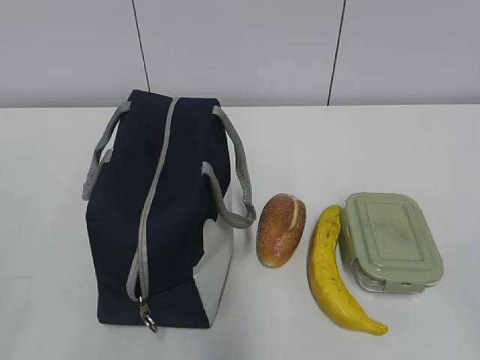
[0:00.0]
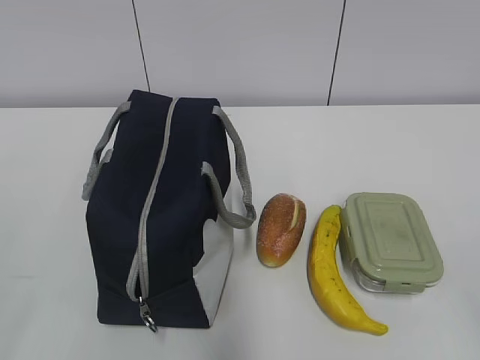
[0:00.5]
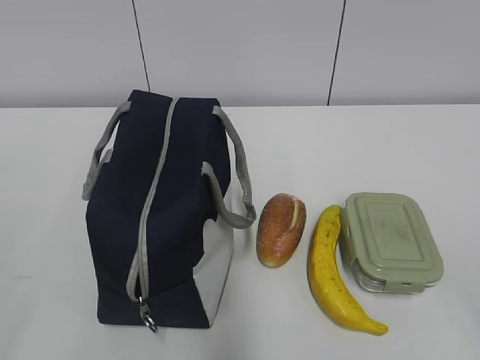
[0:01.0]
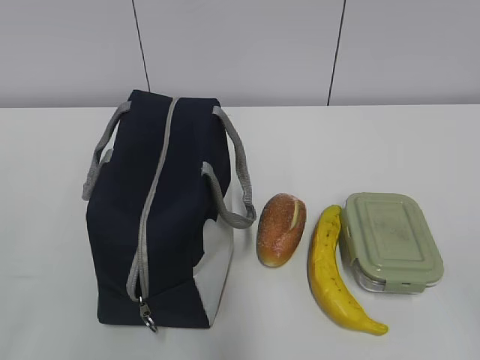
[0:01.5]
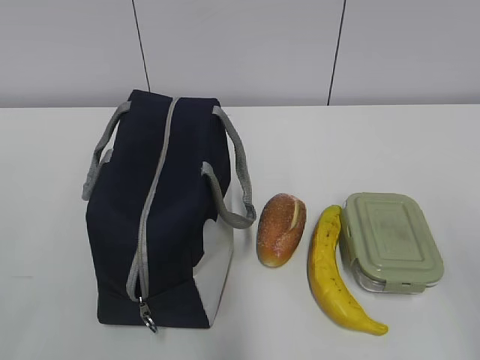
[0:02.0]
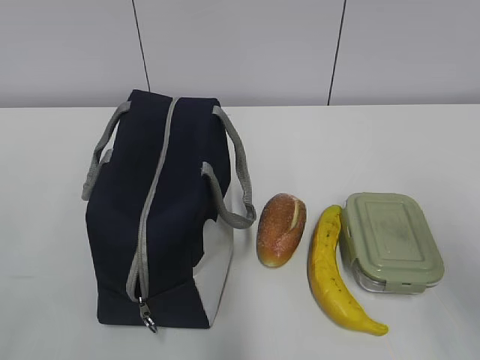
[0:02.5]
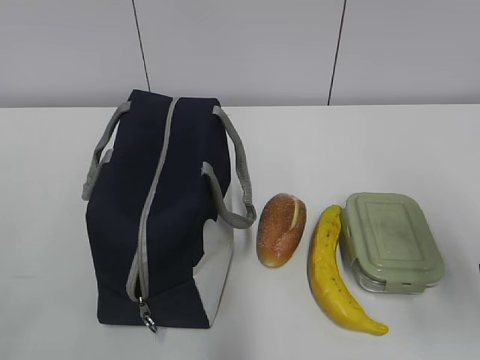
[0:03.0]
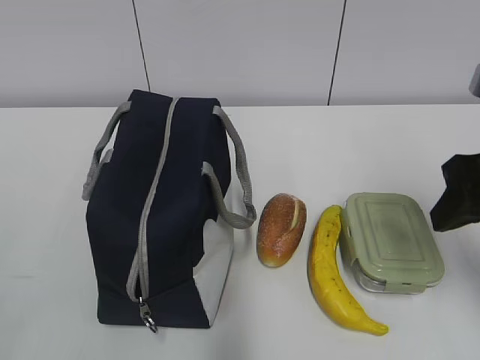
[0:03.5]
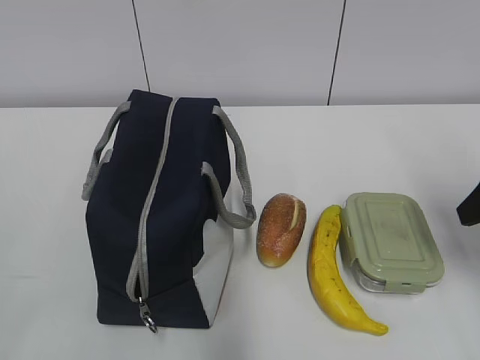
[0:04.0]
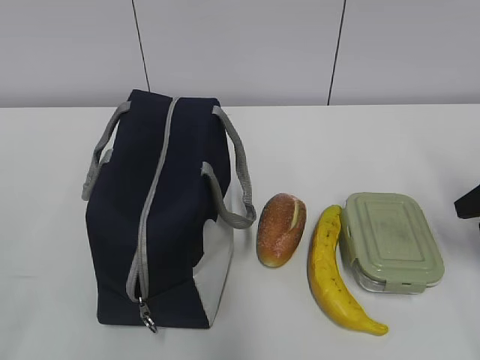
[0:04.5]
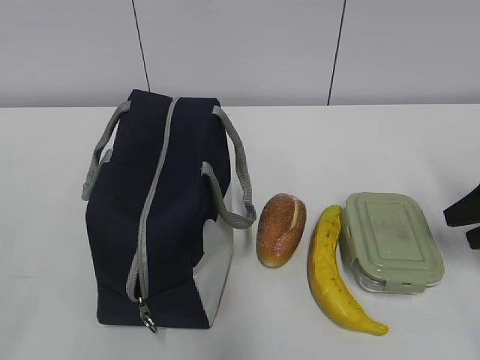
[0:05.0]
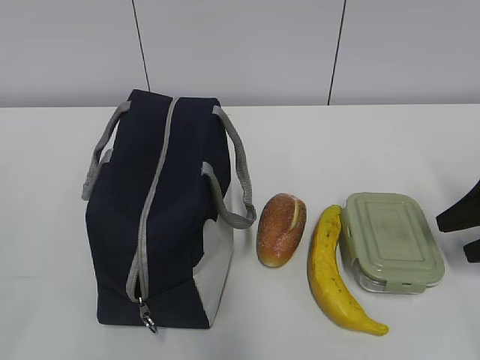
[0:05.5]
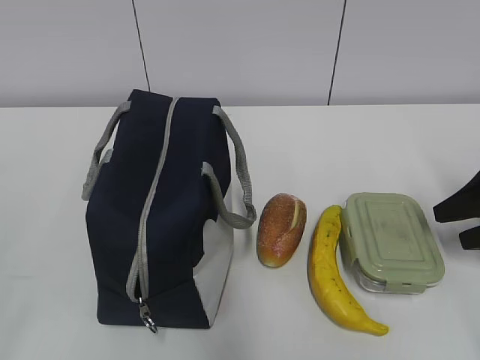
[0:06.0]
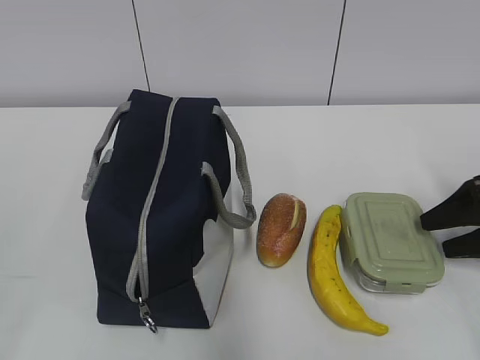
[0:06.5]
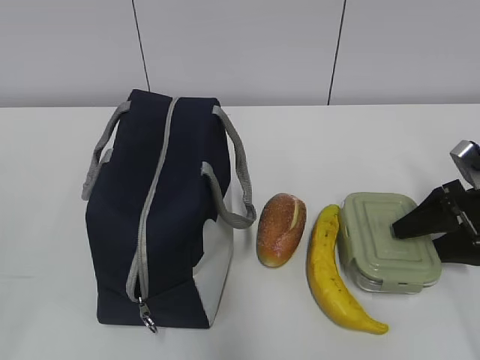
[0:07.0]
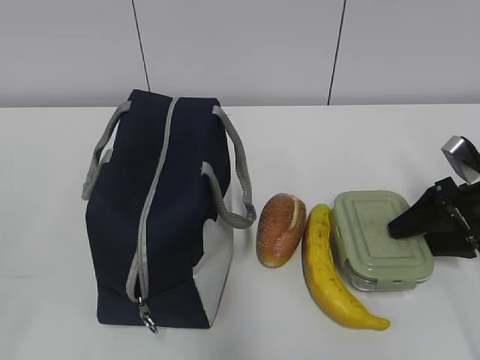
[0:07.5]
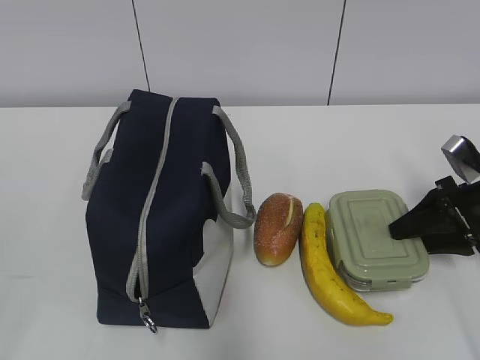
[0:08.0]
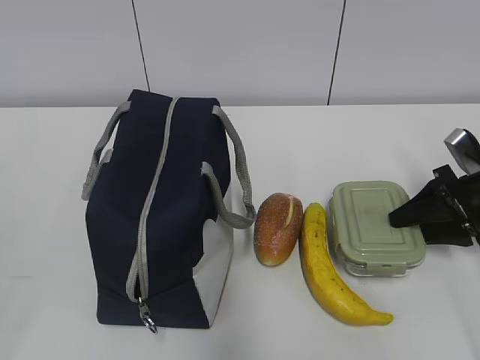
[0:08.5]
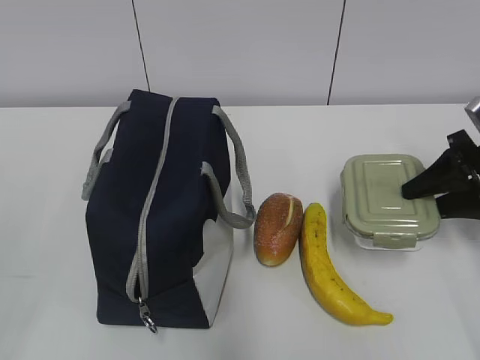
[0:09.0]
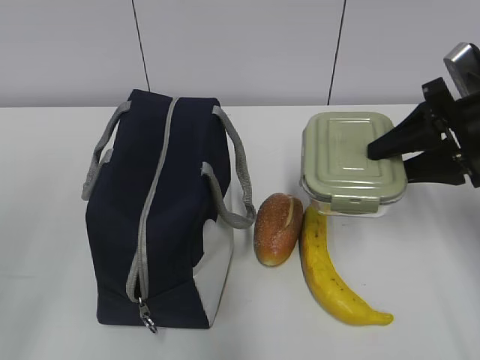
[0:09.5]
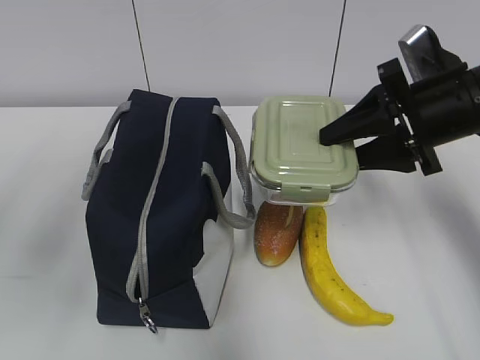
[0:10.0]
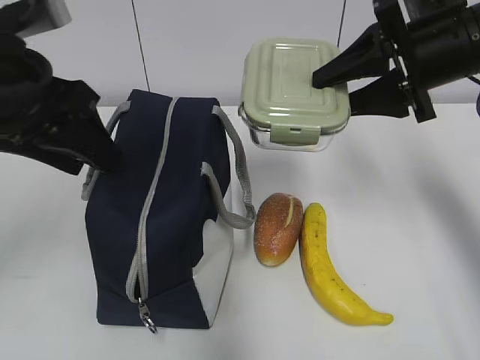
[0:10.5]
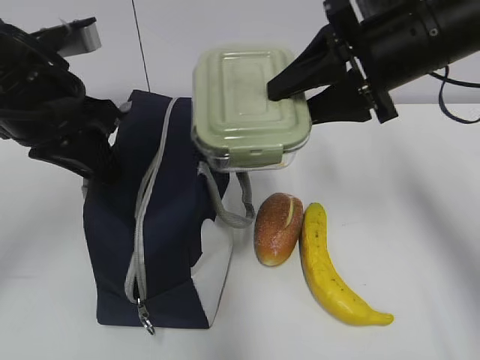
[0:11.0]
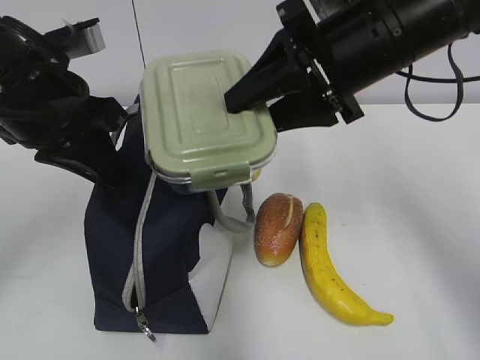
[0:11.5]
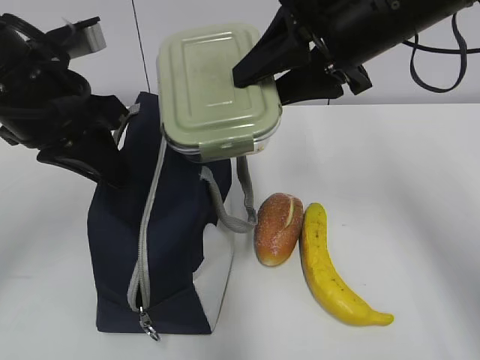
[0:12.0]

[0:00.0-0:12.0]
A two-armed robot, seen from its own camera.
0:02.0 to 0:04.0: The right gripper shifts about 20 cm forward.
0:04.0 to 0:06.0: The right gripper moves downward and to the right, some 10 cm.
0:06.0 to 0:08.0: The right gripper shifts by some 5 cm, and closes its fingers.
0:08.0 to 0:10.0: The left gripper moves forward, approximately 20 cm. The right gripper moves upward and to the left, some 15 cm.
0:10.0 to 0:12.0: The right gripper moves to the left and upward, roughly 10 cm, while the left gripper shifts approximately 15 cm forward, to the right and downward, and closes up.

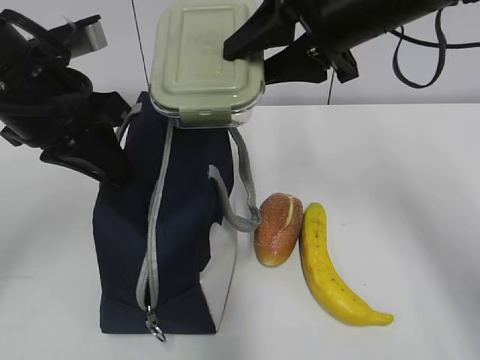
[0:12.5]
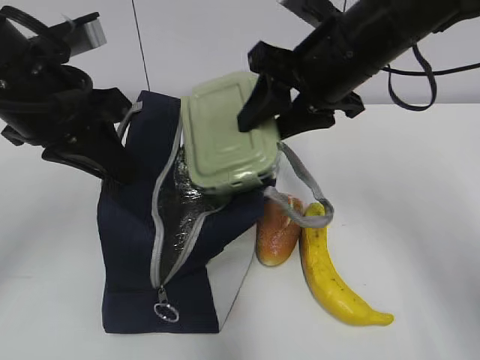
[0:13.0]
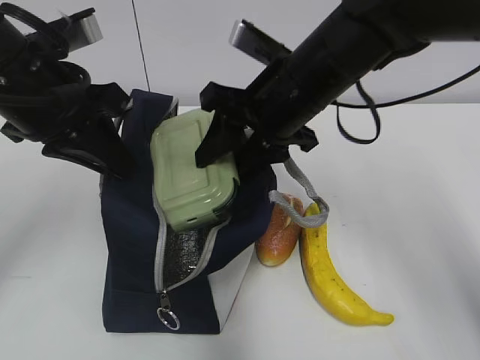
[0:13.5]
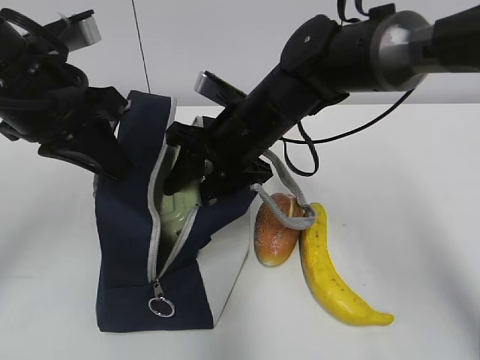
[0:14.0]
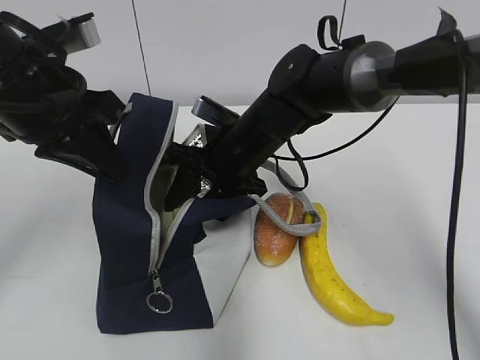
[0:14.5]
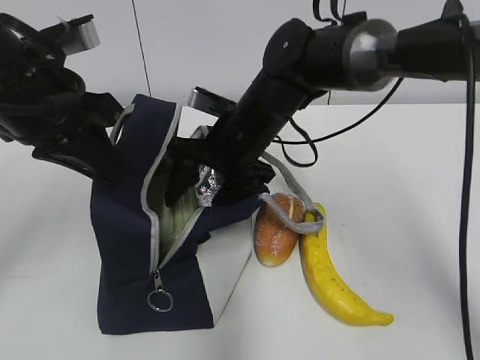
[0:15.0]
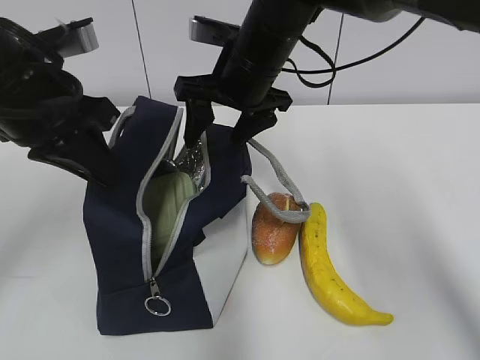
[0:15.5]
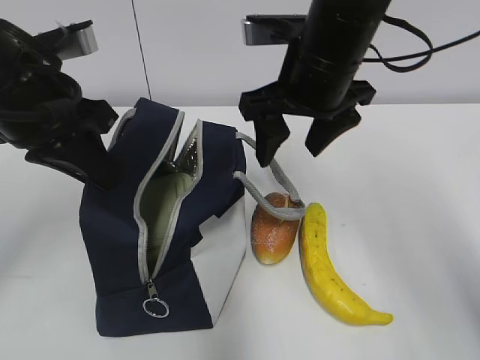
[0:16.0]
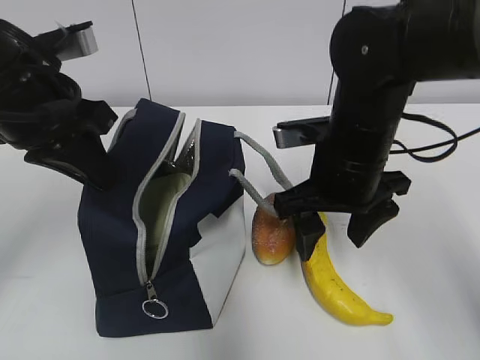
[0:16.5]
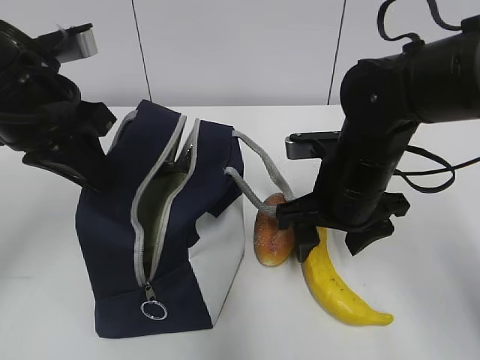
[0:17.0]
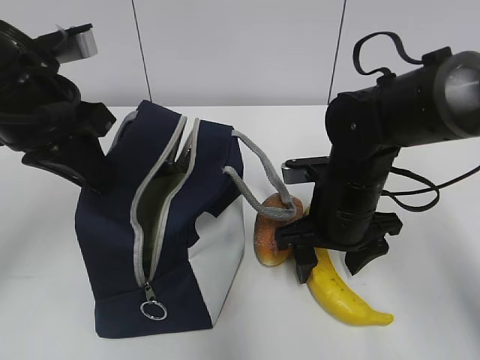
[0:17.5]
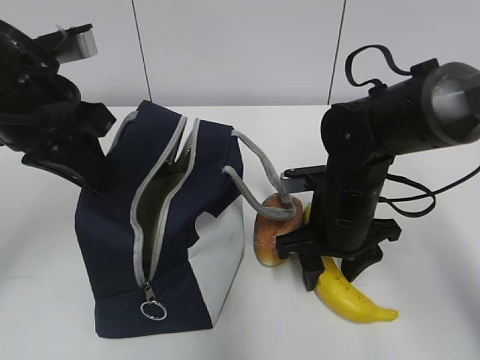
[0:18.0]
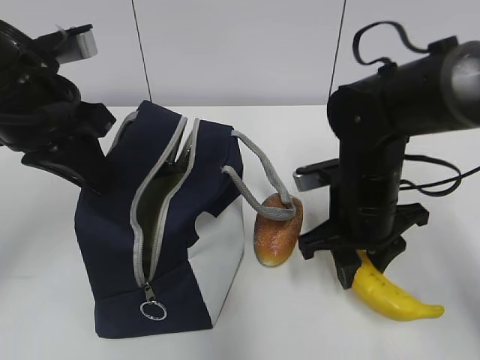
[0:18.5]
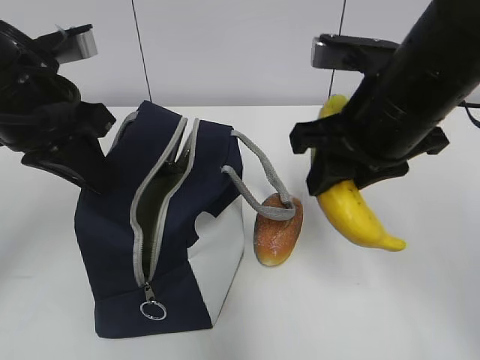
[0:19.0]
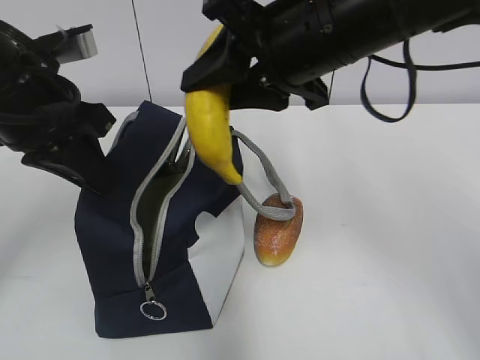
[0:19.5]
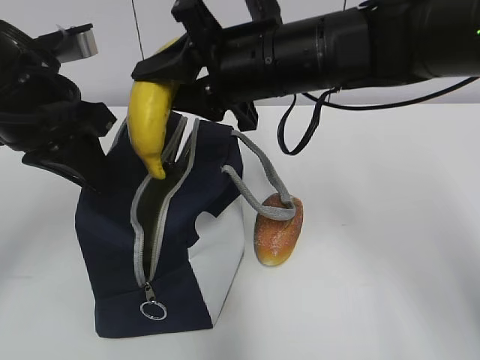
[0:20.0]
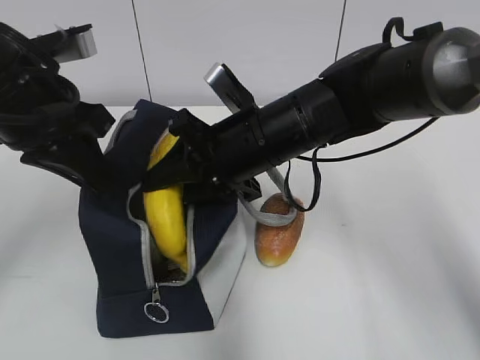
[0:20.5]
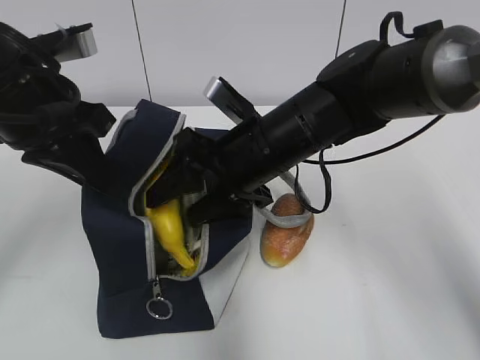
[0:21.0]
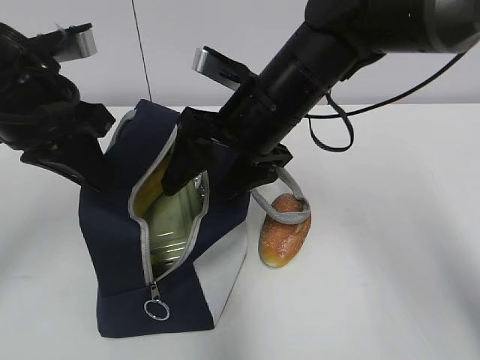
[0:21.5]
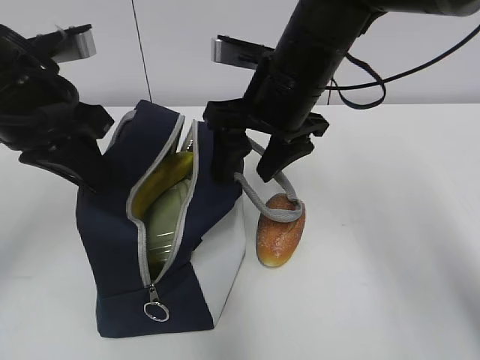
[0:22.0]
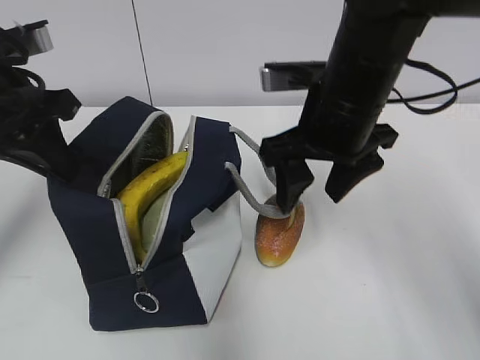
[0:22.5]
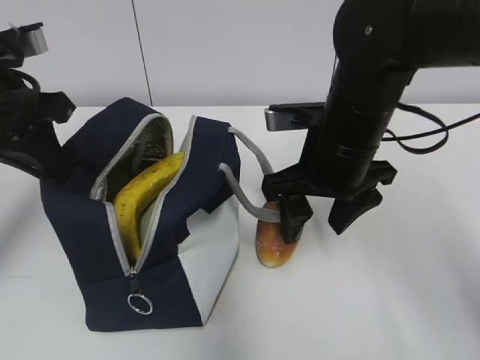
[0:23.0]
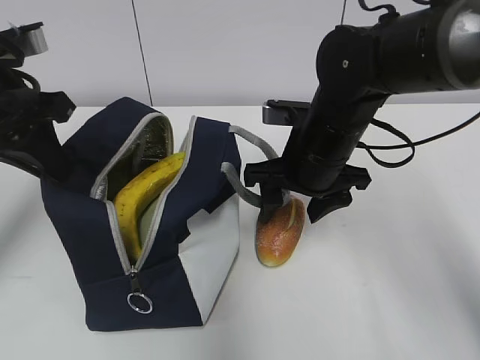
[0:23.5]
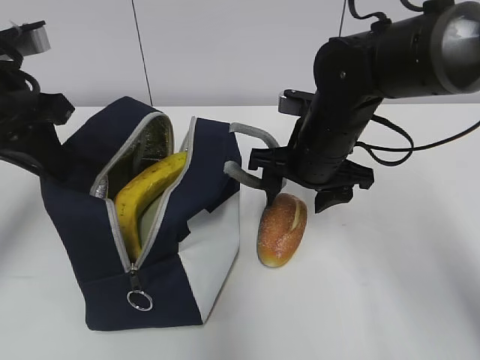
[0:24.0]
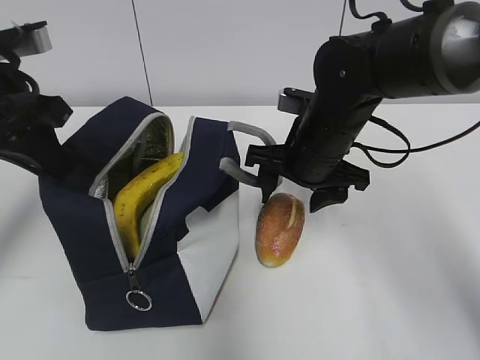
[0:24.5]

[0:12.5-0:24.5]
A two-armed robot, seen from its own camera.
0:12.5 to 0:14.5: The right gripper travels downward and to the left by approximately 20 cm.
0:14.5 to 0:16.5: The right gripper moves to the right and backward, roughly 10 cm.
0:16.5 to 0:18.5: The right gripper moves downward, about 5 cm, and closes up.
0:18.5 to 0:20.5: The right gripper shifts approximately 10 cm to the left, and moves some 20 cm upward and comes back.
0:20.5 to 0:22.5: The right gripper moves to the right and upward, approximately 10 cm, and opens.
0:22.5 to 0:24.5: The right gripper travels downward by about 10 cm.

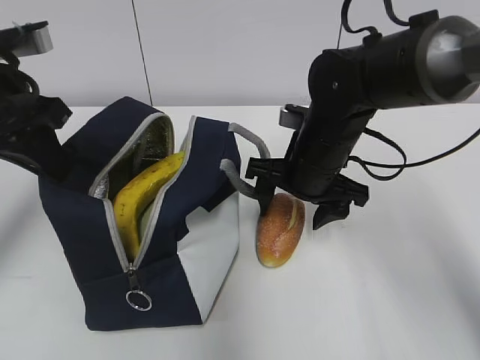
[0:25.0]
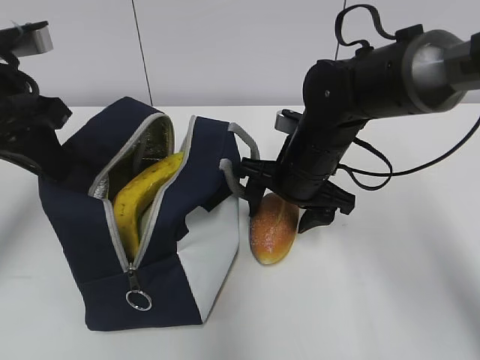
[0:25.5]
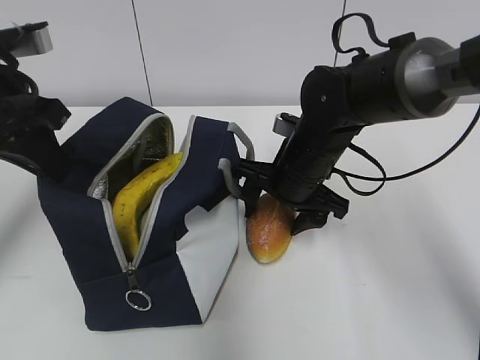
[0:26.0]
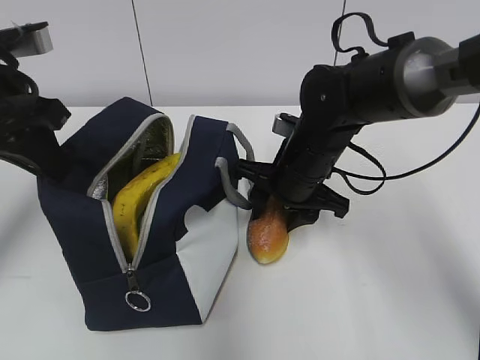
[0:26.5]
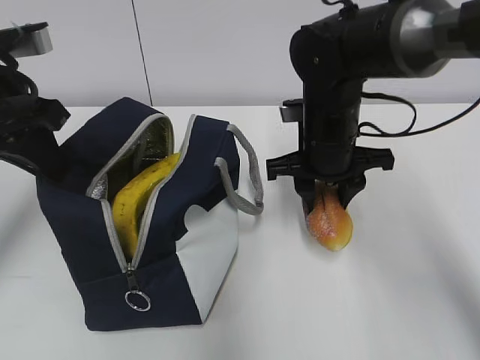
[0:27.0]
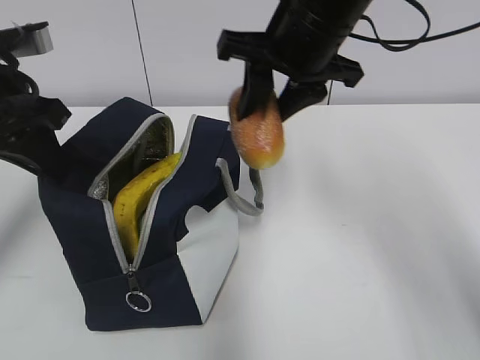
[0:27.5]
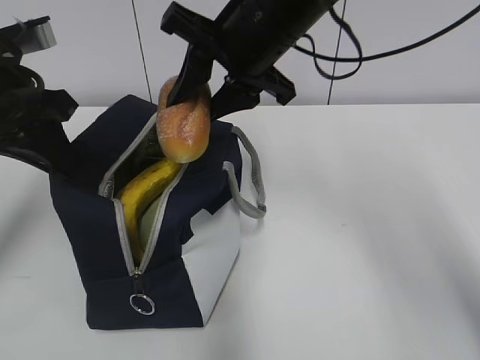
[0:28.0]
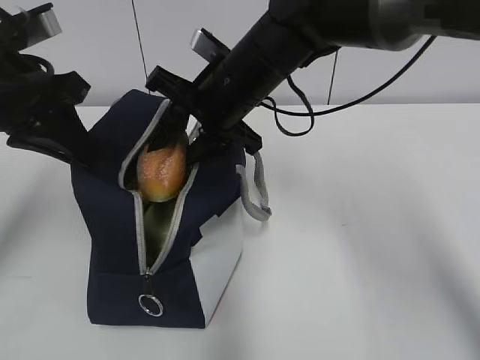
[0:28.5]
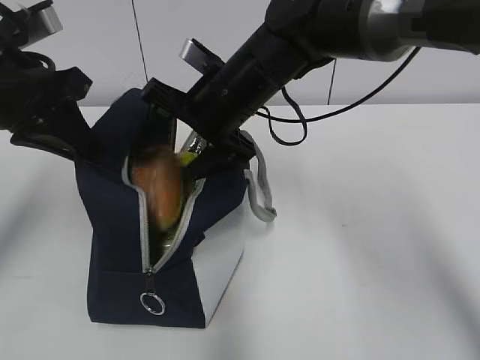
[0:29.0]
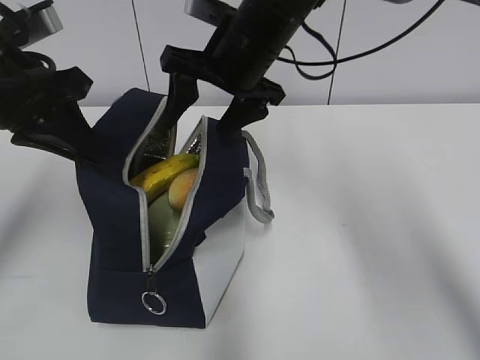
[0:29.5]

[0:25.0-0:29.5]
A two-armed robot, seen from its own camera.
0:25.0 to 0:27.0: The right gripper closes its fingers.
0:27.0 to 0:29.5: The right gripper swings up and down, roughly 15 cm each way, with 2 reversals, and opens.
